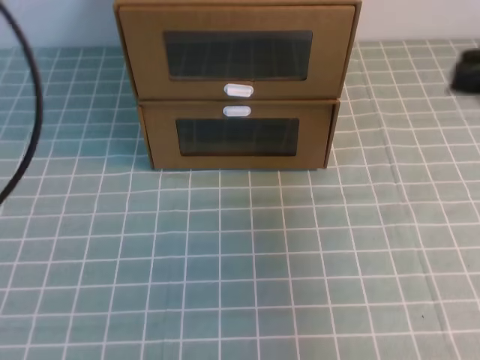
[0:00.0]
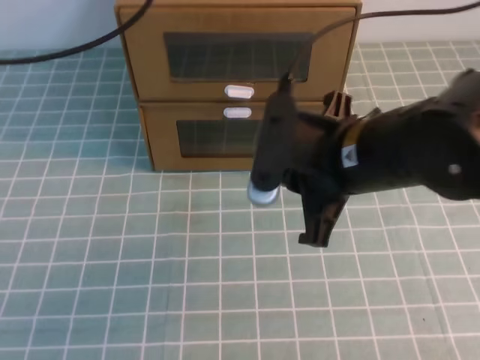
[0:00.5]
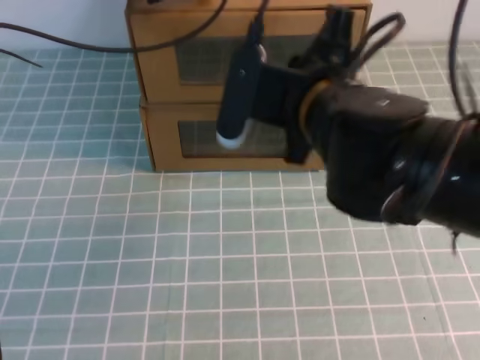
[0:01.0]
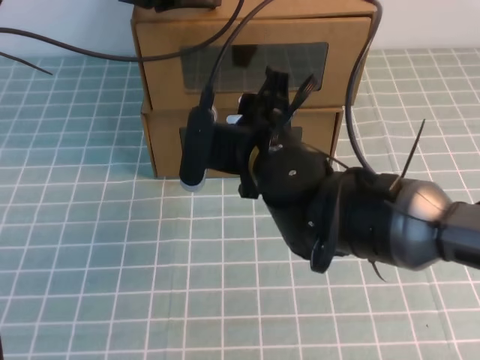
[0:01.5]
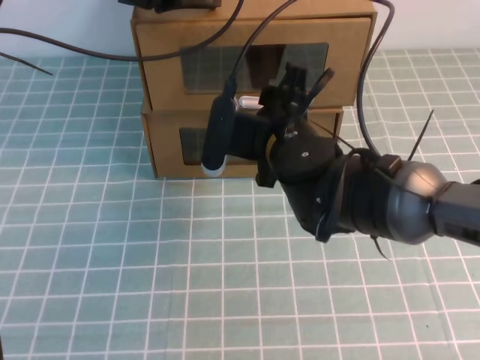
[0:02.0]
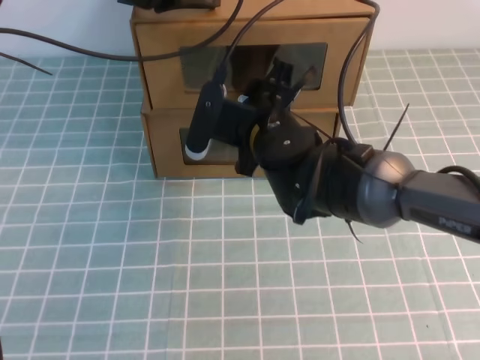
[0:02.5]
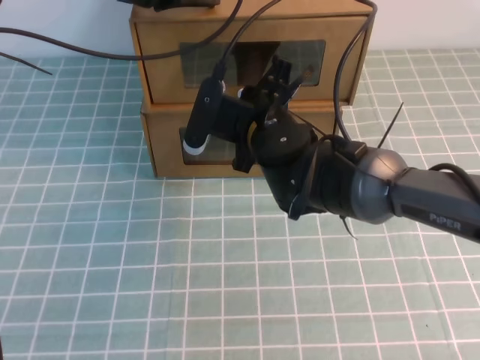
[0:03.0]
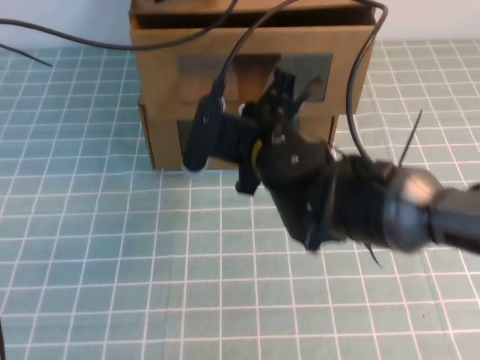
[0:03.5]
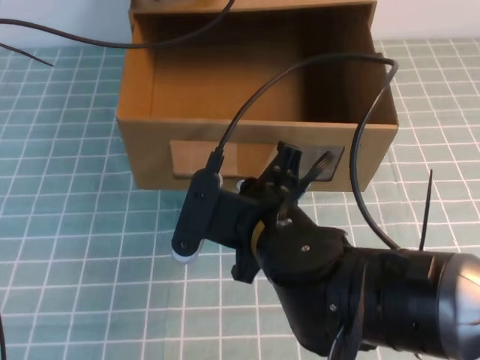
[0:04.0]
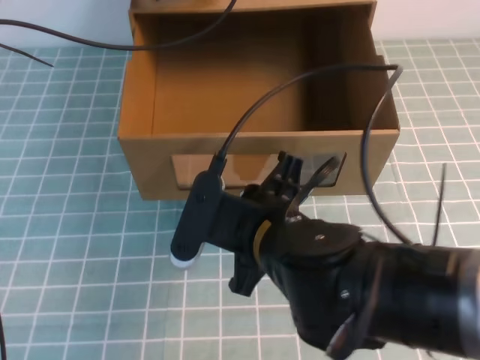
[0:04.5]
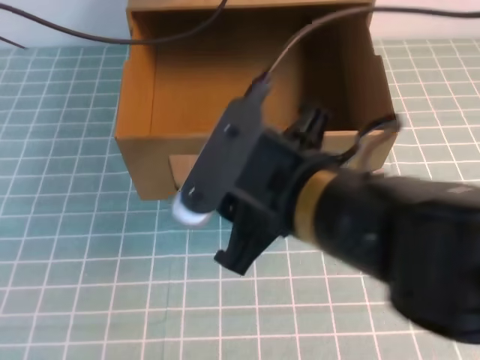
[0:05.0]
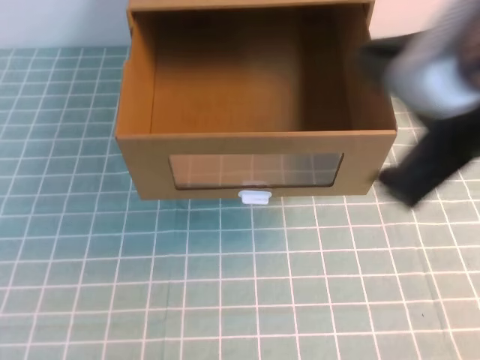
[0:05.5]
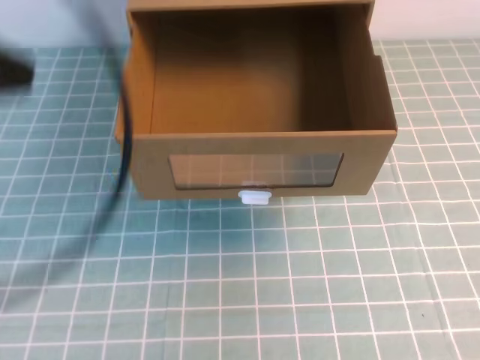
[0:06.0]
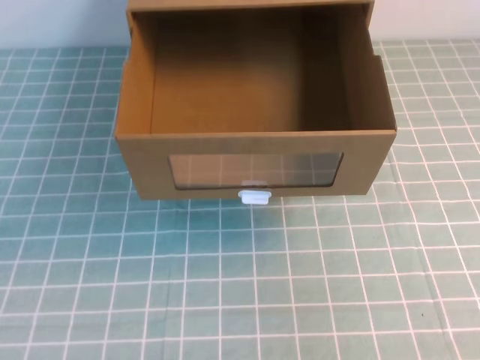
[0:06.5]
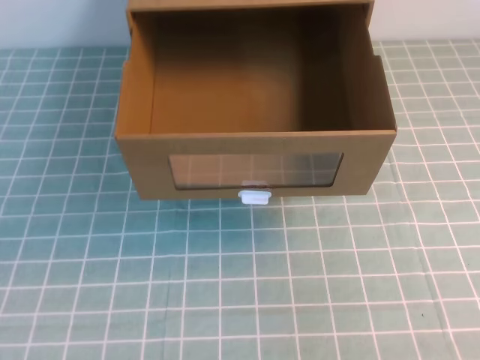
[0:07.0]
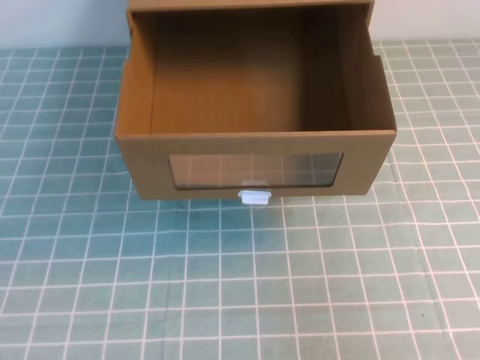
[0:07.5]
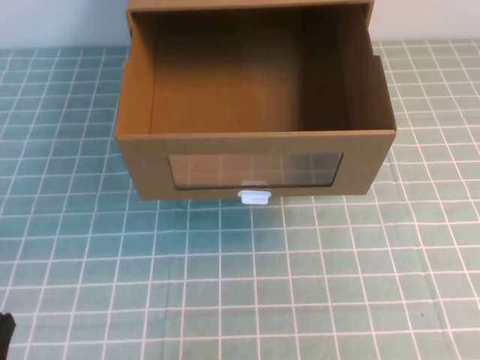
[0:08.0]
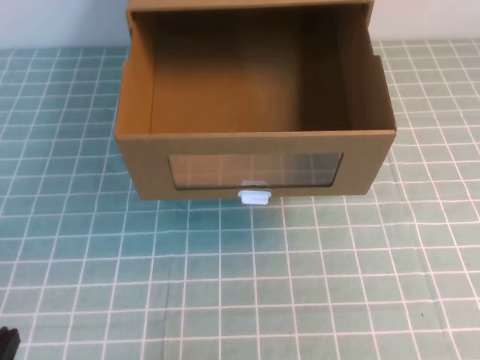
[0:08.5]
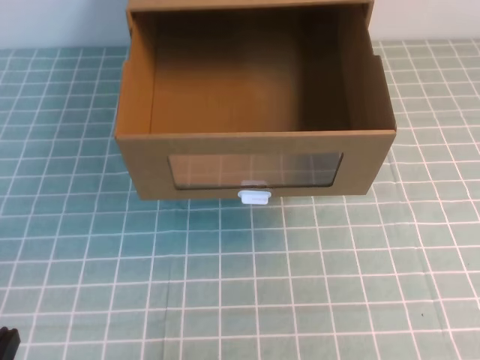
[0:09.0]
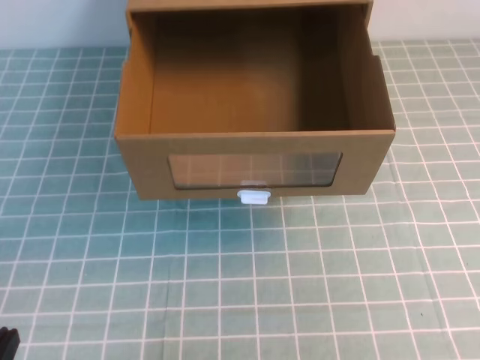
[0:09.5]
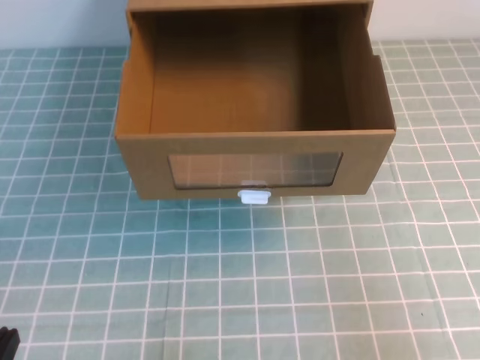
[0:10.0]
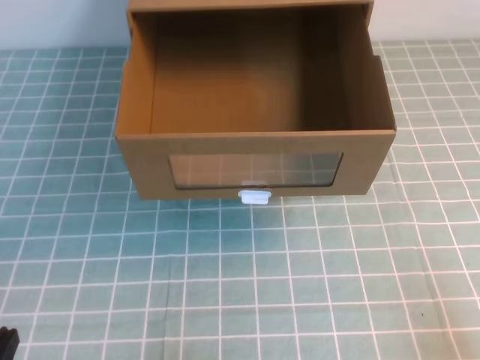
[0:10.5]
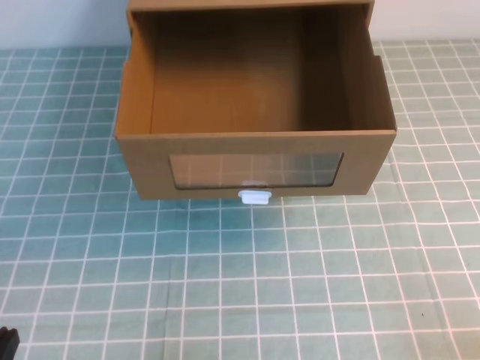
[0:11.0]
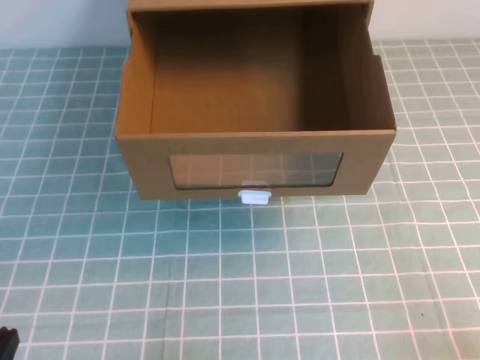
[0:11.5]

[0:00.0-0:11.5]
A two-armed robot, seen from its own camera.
Task of the whole recording: open the shoebox on the cyan tablecloth.
Step, 0:00.0 to 0:11.5: Open the shoe box.
0:00.0 to 0:02.0: The left gripper moves forward and to the right, approximately 25 cm. Meanwhile the right gripper moves to the left and downward, about 25 cm, and opens its fingers.
0:02.0 to 0:04.0: The right gripper goes approximately 10 cm backward, and closes its fingers.
0:04.0 to 0:06.0: The right gripper heads to the right, upward and backward, covering roughly 35 cm, and opens and closes again. The left gripper travels backward by some 30 cm.
0:06.0 to 0:07.5: The left gripper is displaced downward and backward by some 20 cm; the right gripper moves to the right and backward, roughly 10 cm.

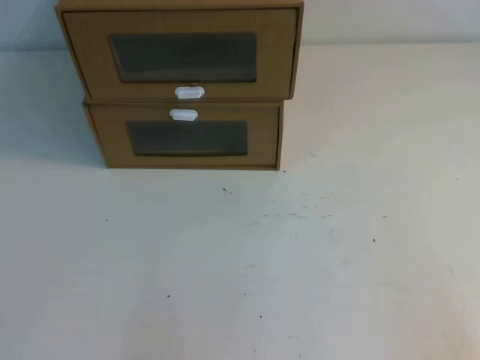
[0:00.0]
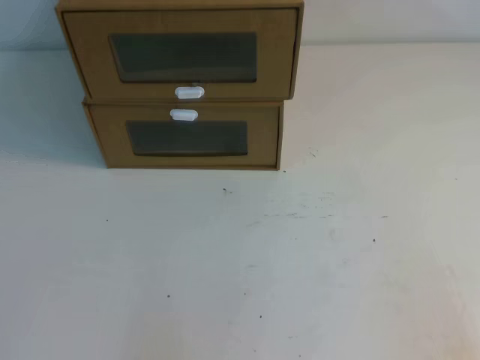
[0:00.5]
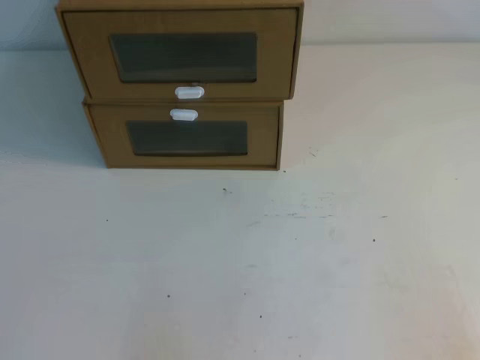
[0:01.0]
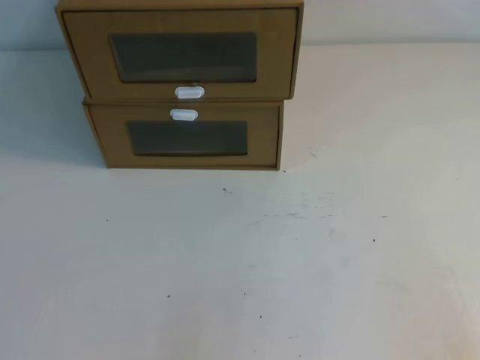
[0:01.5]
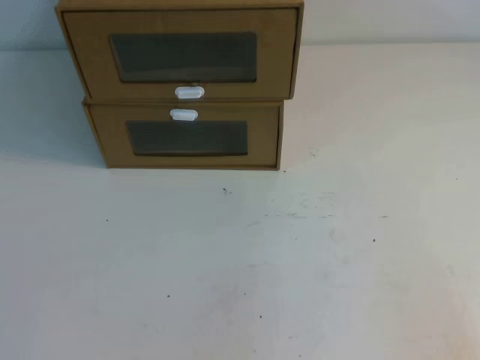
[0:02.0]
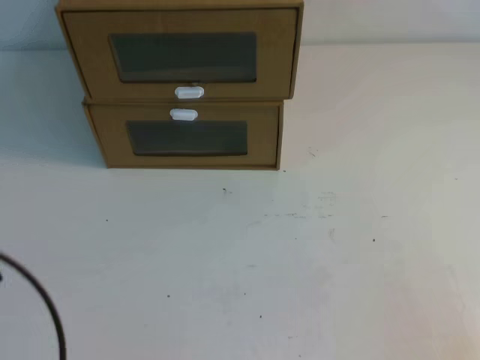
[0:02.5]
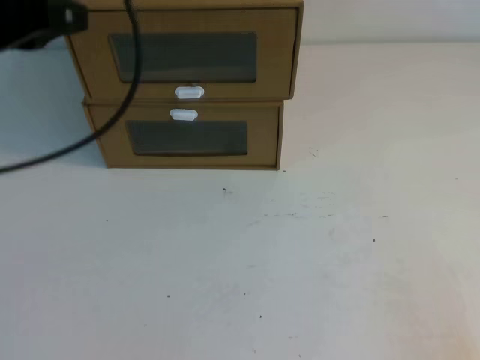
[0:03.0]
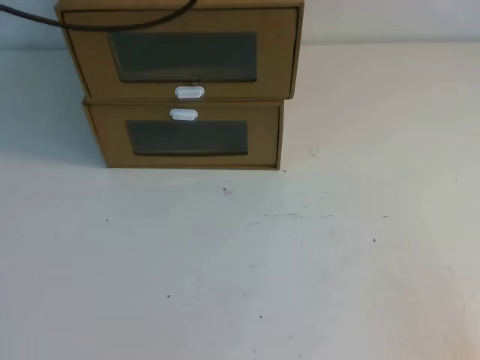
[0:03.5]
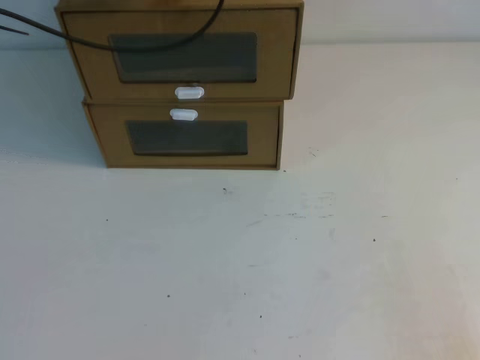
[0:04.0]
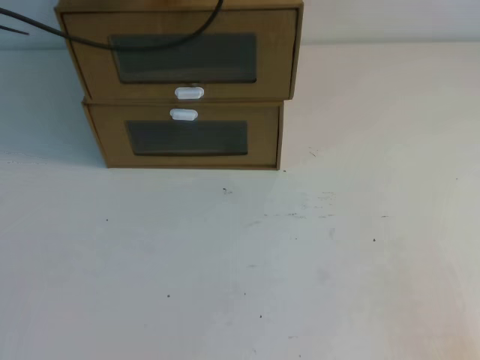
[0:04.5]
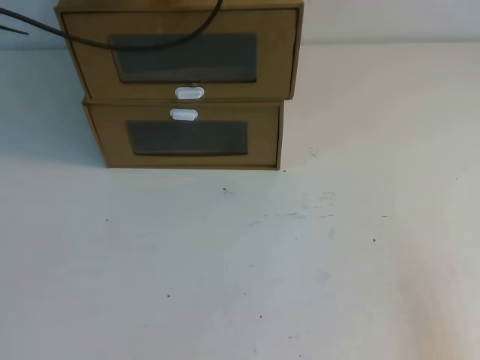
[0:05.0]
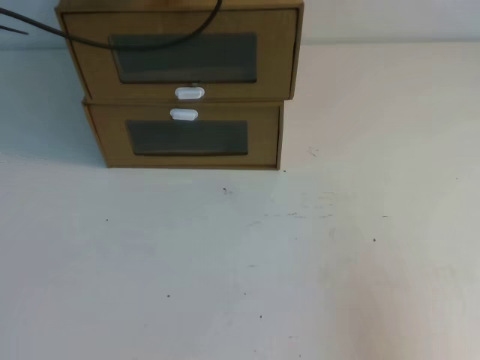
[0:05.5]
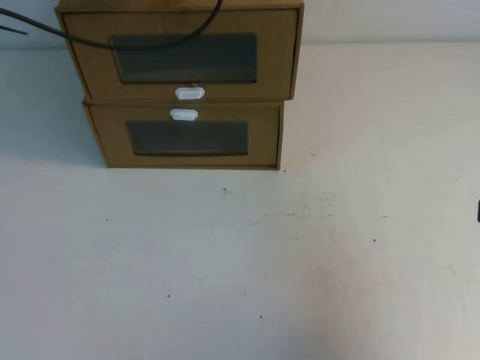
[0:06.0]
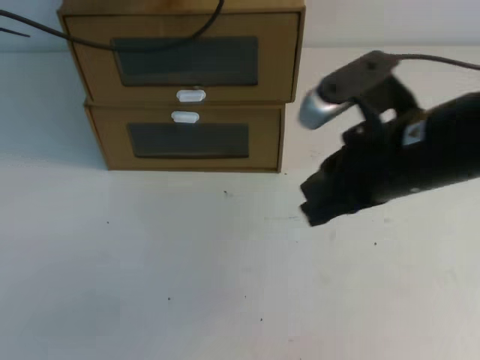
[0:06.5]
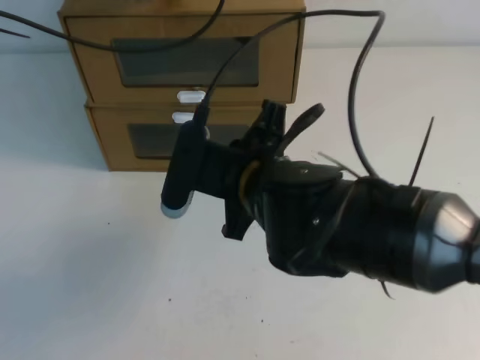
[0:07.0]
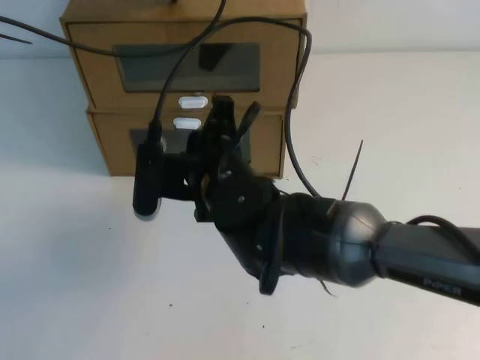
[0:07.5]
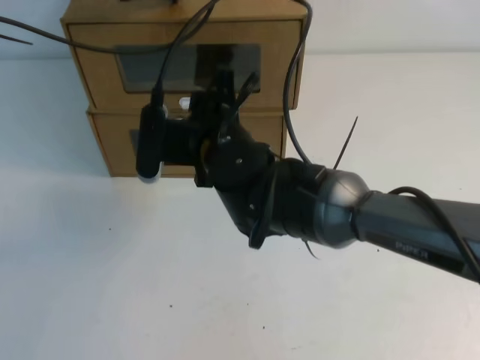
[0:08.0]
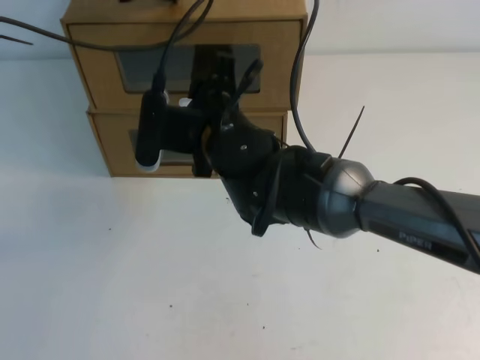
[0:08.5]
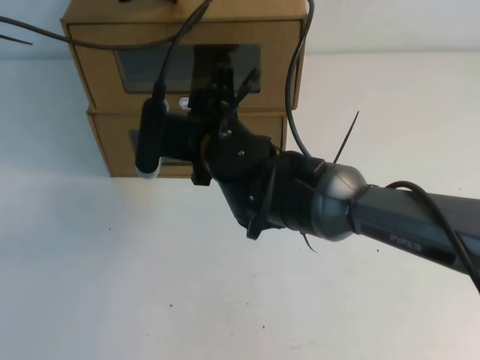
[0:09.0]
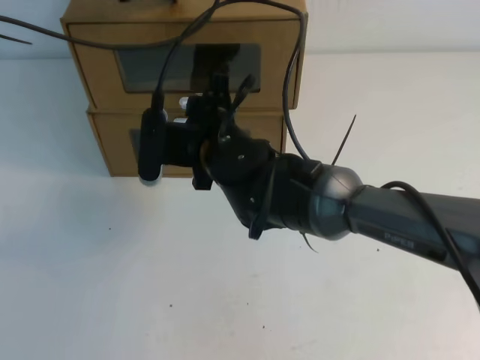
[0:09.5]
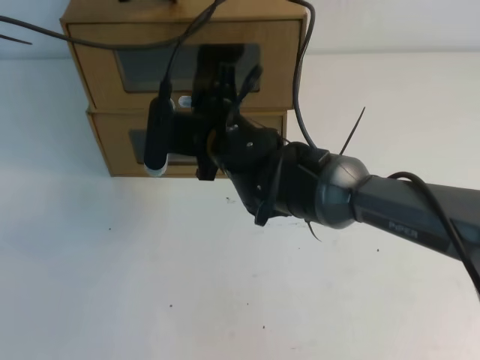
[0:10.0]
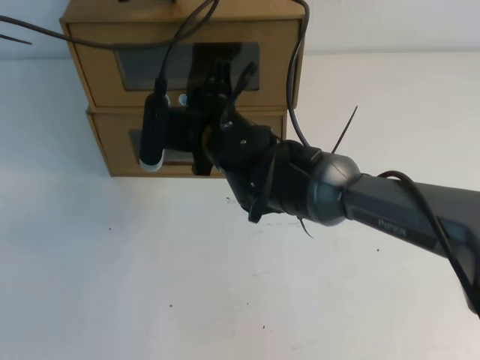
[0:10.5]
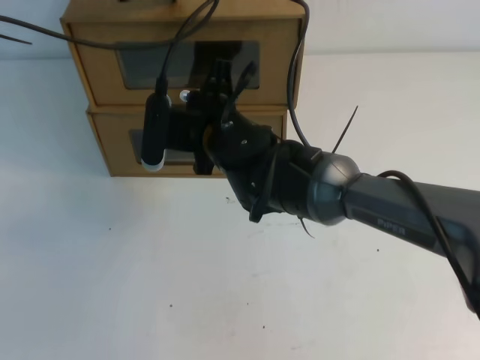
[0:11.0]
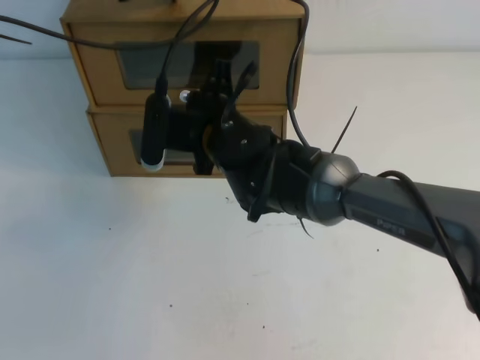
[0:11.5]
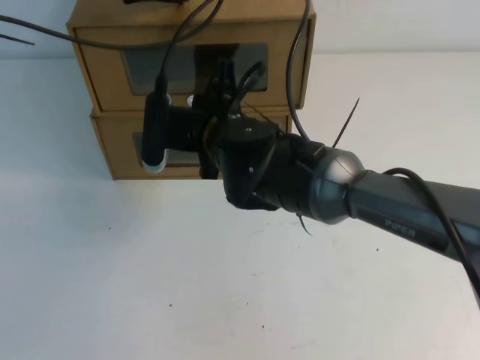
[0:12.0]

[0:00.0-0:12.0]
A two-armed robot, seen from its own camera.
Task of the whole recording: open the shoebox on the table.
0:02.0 to 0:04.0: The left gripper goes some 40 cm forward and upward.
0:04.0 to 0:06.0: The right gripper is displaced upward and forward by some 15 cm.
0:06.0 to 0:08.0: The right gripper travels to the left and forward by about 35 cm, and opens.
0:08.0 to 0:10.0: The grippers stay close to where they were, moving slightly.
0:10.0 to 0:12.0: The right gripper closes its fingers.

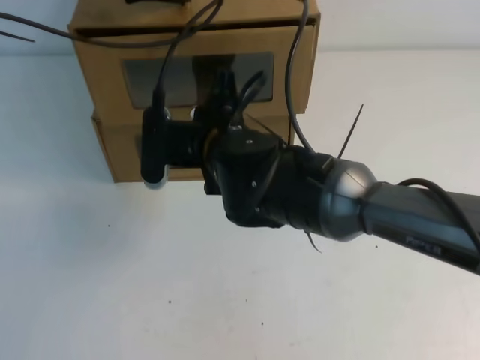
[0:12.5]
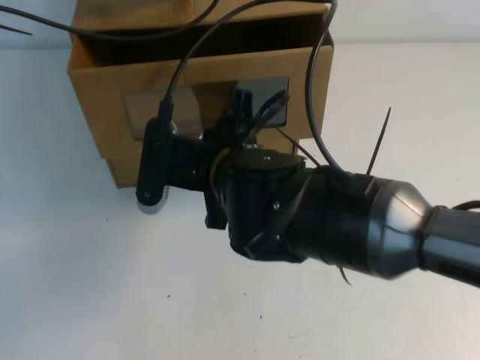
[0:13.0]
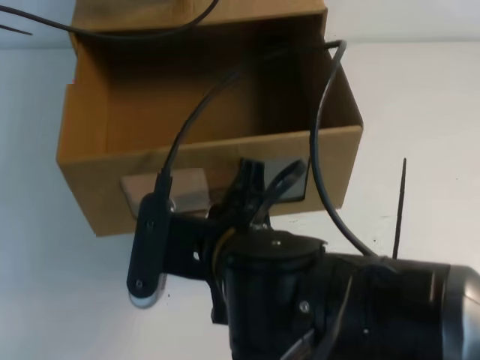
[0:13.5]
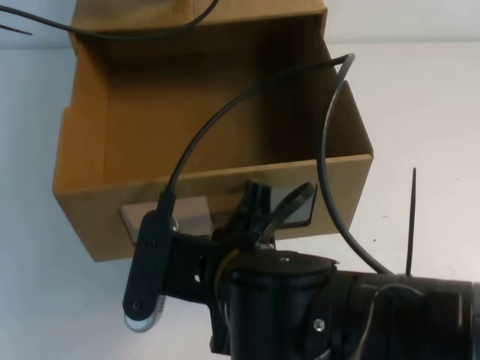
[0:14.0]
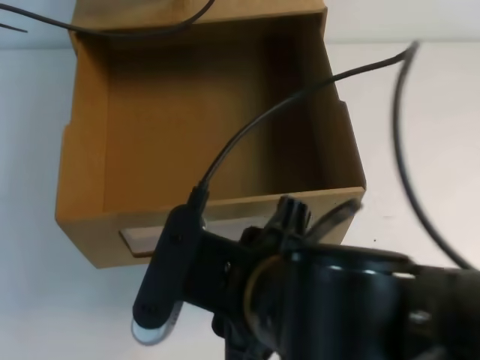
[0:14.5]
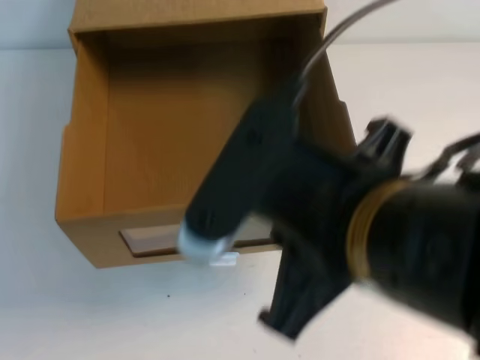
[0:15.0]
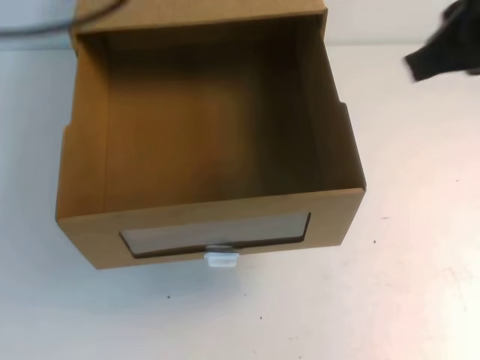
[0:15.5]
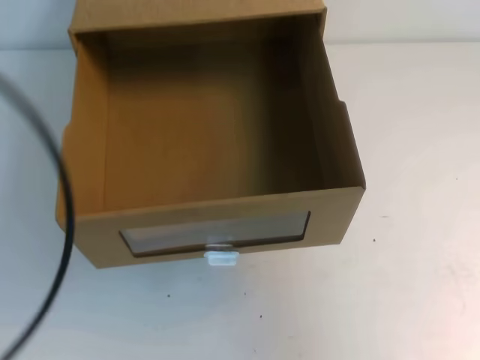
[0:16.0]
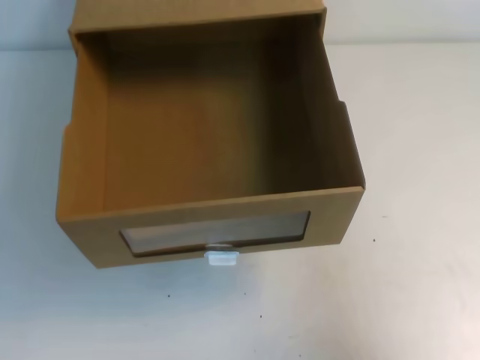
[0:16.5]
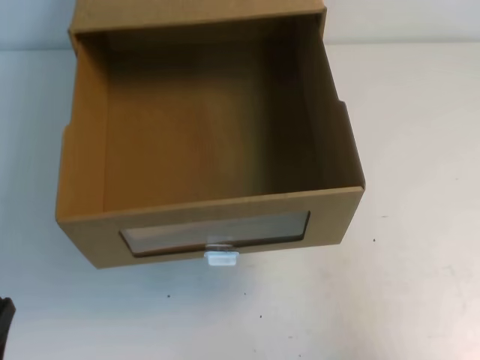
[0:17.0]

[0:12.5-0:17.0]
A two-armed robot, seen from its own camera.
Task of the whole recording: open the shoebox on the table.
0:12.5 to 0:14.5: The right gripper heads backward, covering about 20 cm, and opens its fingers.
0:14.5 to 0:17.0: The left gripper shifts about 40 cm backward and downward; the right gripper shifts approximately 30 cm to the right, and closes up.
